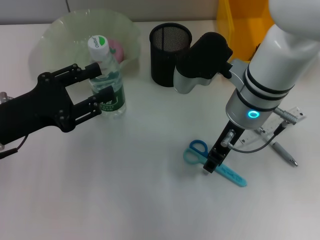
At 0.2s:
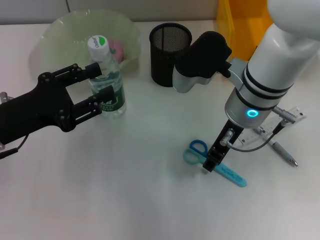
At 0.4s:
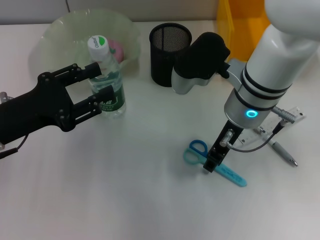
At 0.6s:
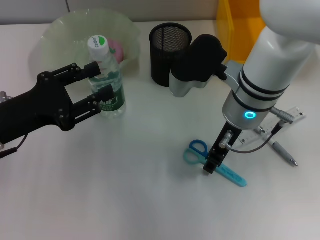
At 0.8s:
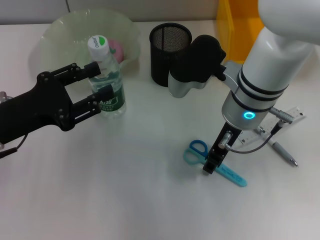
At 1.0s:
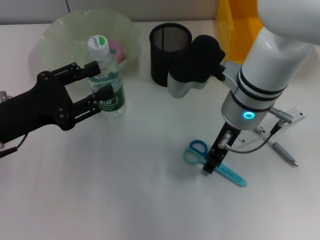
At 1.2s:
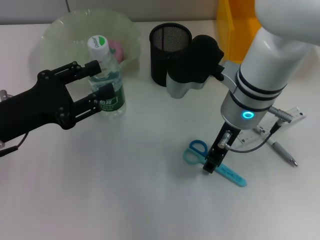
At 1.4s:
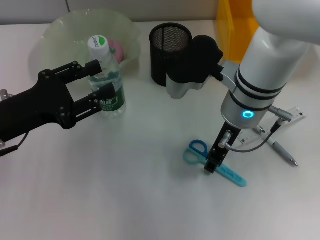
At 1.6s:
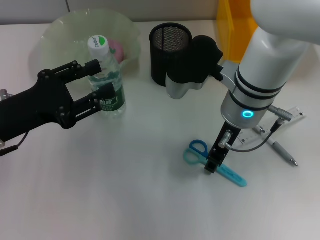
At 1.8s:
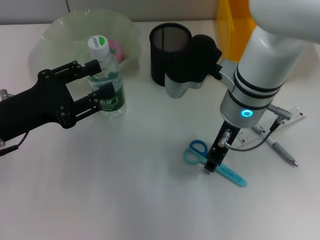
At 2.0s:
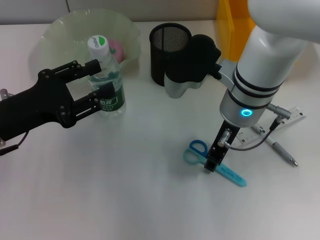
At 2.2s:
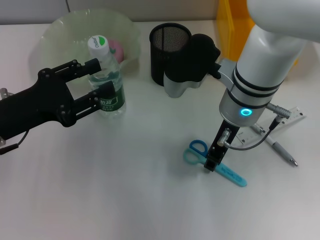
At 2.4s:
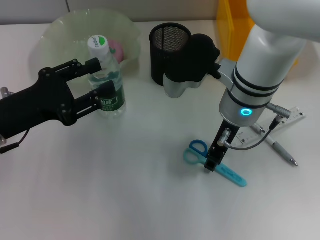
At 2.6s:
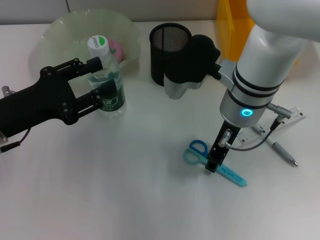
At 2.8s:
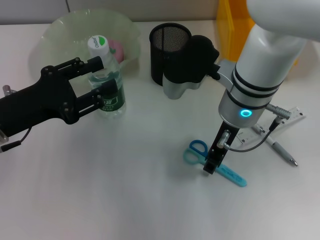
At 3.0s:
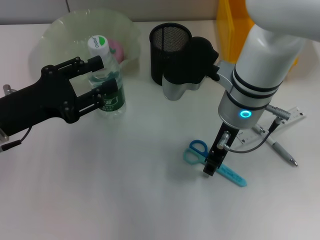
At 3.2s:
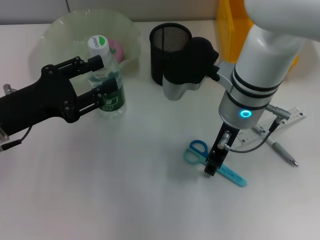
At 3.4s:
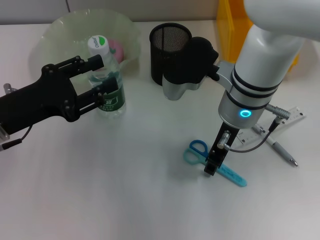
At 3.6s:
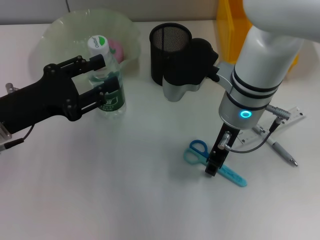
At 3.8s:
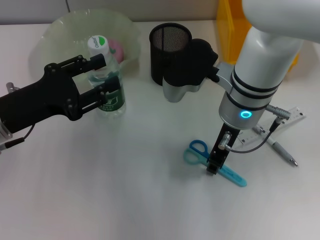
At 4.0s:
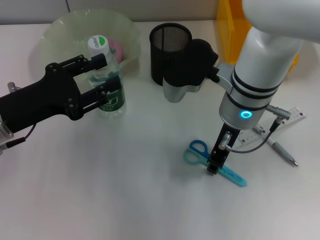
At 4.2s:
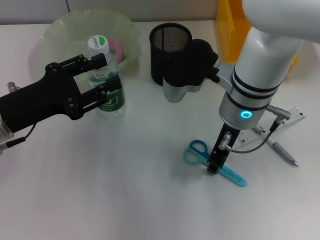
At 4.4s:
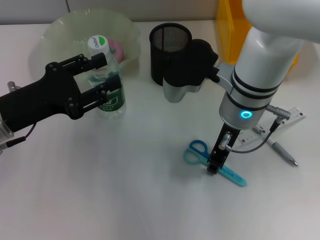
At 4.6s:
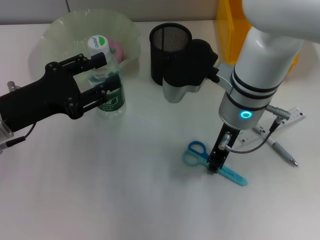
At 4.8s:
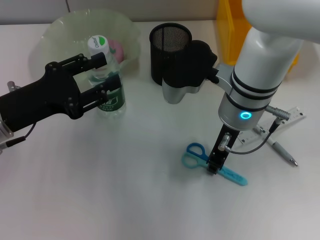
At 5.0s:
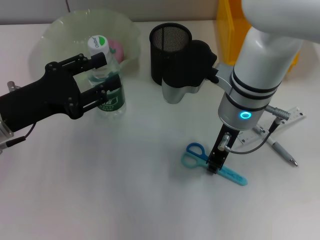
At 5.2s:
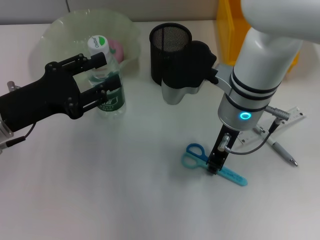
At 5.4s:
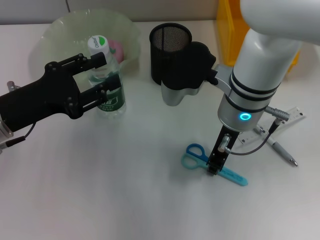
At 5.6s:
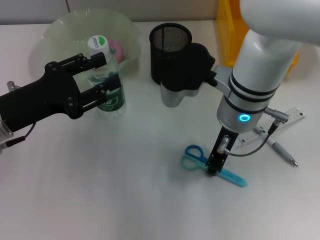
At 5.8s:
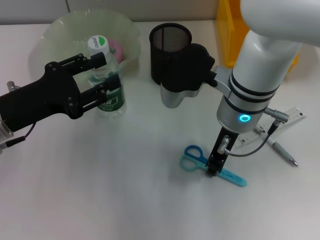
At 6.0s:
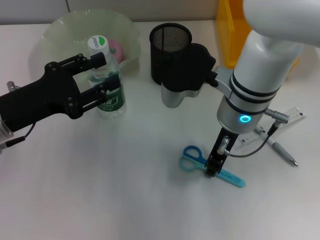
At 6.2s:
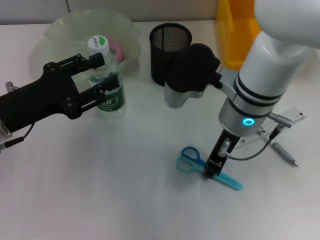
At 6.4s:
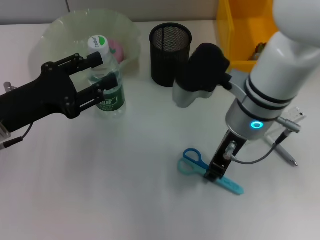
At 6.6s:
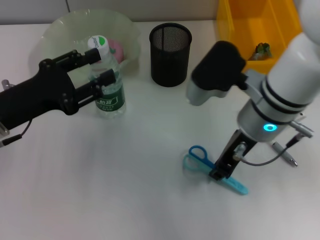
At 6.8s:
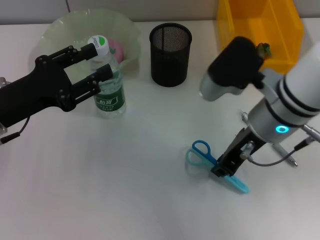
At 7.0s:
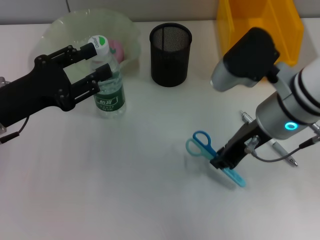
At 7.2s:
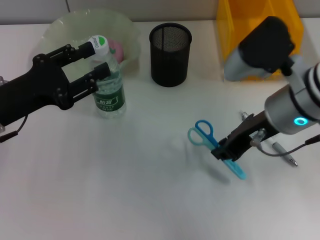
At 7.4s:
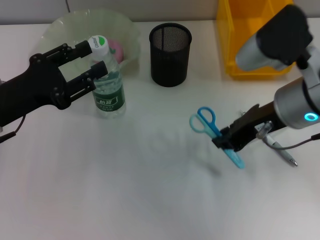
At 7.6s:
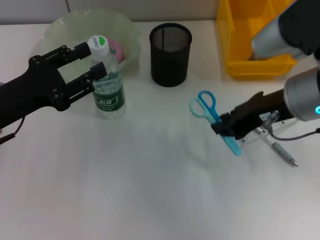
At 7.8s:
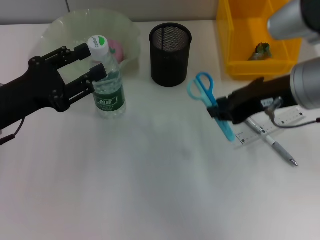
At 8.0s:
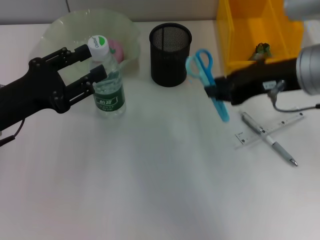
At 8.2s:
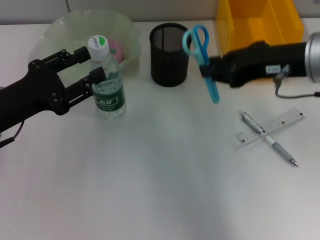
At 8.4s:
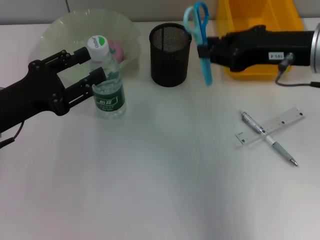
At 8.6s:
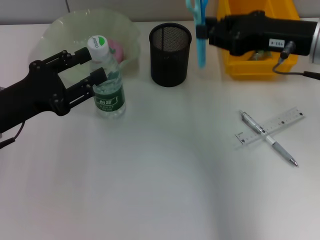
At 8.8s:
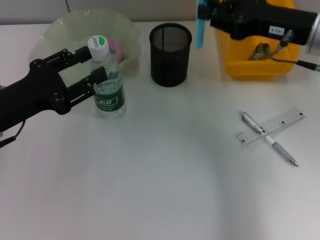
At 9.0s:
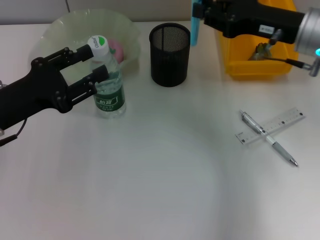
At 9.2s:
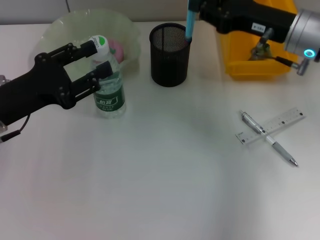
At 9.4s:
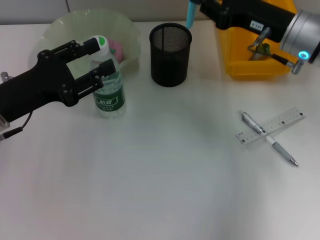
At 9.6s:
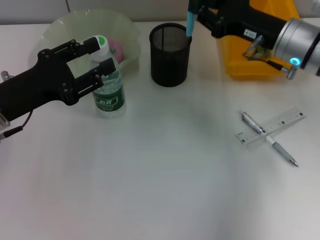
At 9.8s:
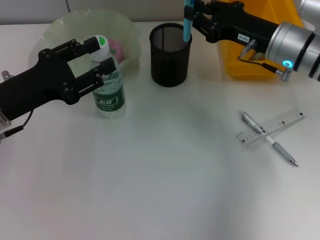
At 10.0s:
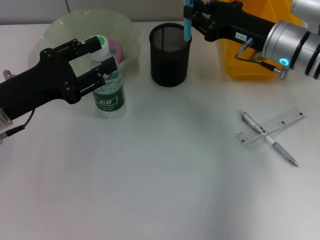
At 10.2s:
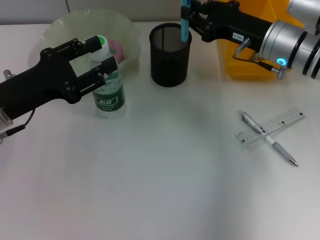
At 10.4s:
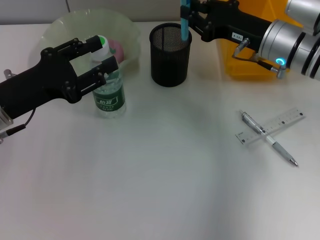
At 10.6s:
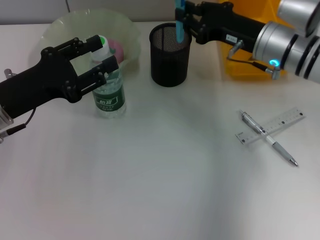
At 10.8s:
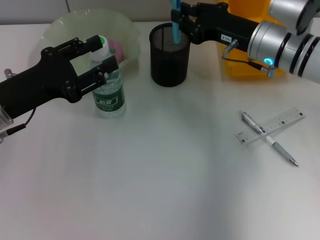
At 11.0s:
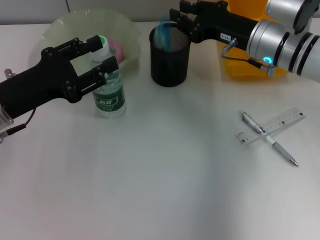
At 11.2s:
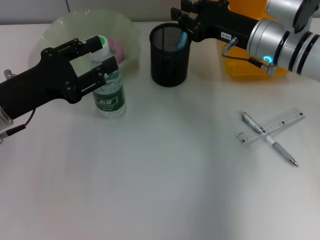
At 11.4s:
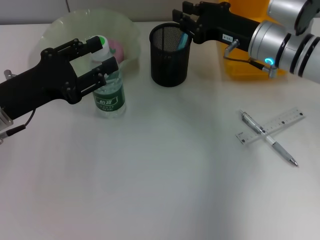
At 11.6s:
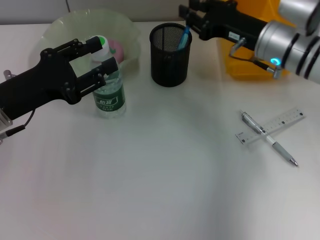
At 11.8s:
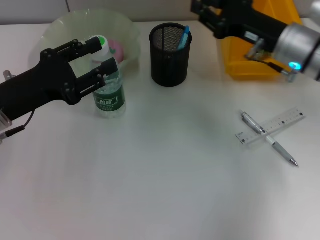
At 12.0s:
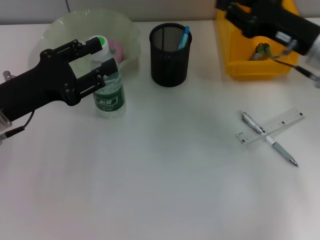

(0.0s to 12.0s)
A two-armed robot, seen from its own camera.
Step, 0.0s - 11.4s: Place the blue scissors into the pen holder with the right hand.
0.0s - 1.6s: Both grippers stay about where they are.
1.6s - 3.0s: Both grippers stay put.
3.0s - 6.0s: Both grippers stay put.
6.0s - 7.6s: The right gripper shifts some 10 cm to the right and upward.
7.6s - 9.0s: The right gripper is displaced forward by some 10 cm.
9.0s - 10.4s: The right gripper shifts by approximately 5 cm.
10.4s - 12.0s: The right gripper goes some 5 cm to the right.

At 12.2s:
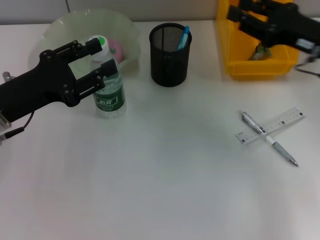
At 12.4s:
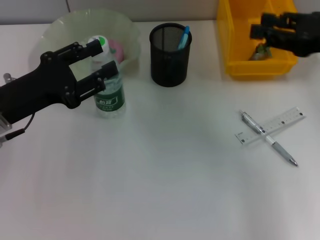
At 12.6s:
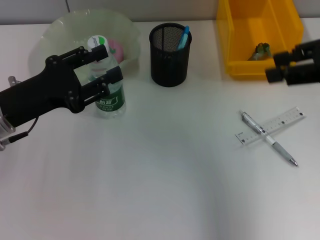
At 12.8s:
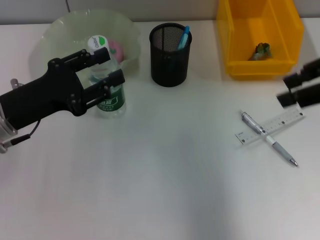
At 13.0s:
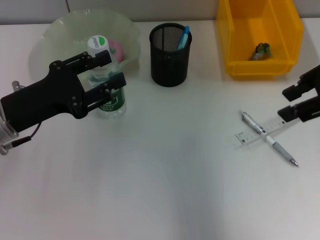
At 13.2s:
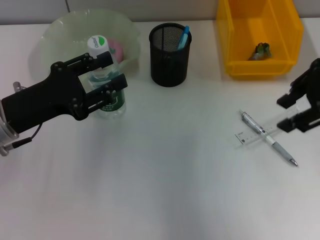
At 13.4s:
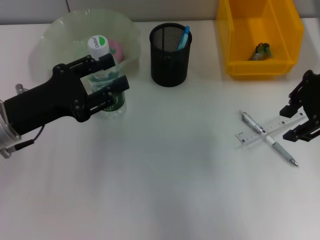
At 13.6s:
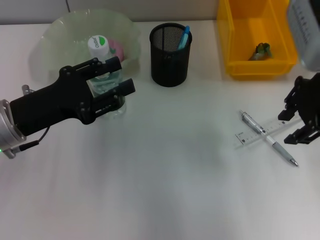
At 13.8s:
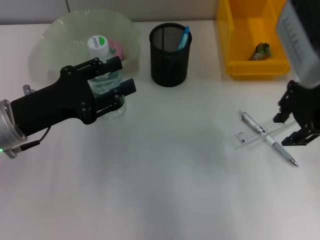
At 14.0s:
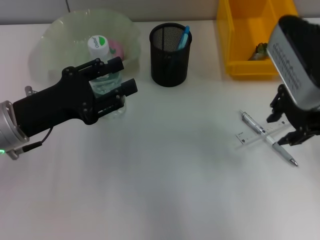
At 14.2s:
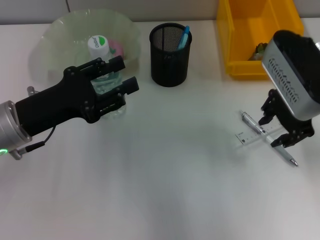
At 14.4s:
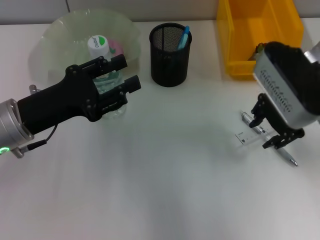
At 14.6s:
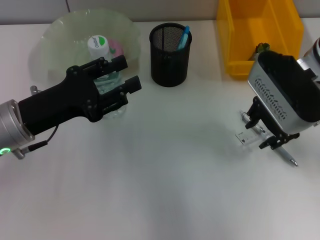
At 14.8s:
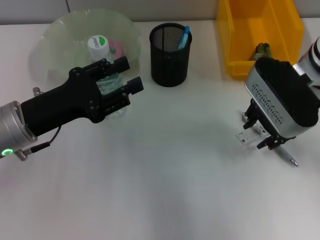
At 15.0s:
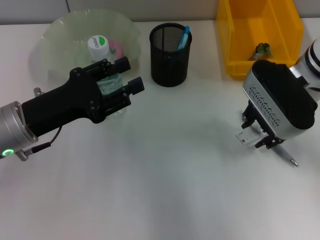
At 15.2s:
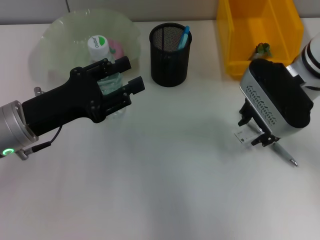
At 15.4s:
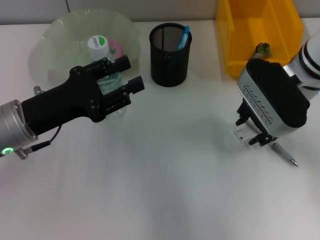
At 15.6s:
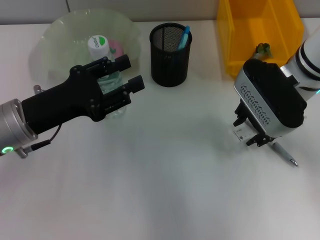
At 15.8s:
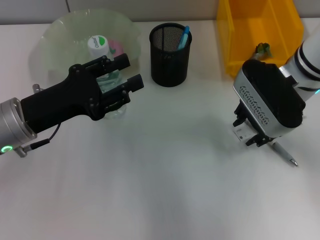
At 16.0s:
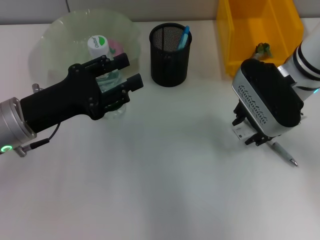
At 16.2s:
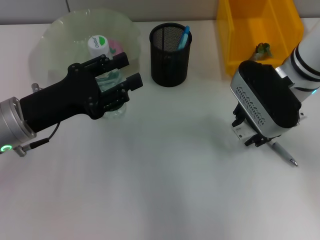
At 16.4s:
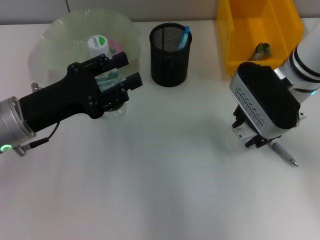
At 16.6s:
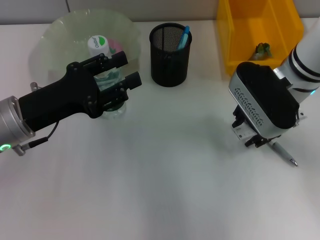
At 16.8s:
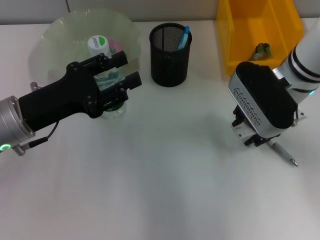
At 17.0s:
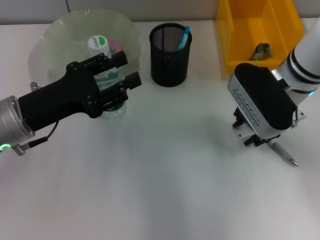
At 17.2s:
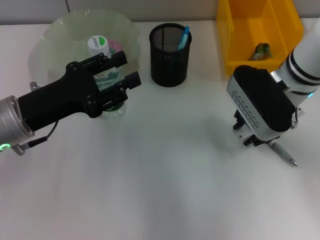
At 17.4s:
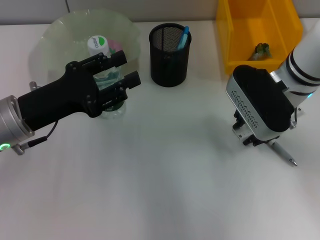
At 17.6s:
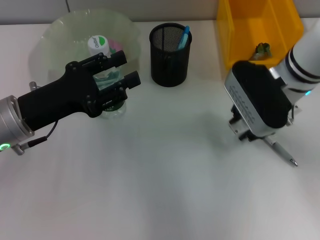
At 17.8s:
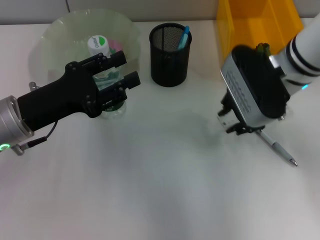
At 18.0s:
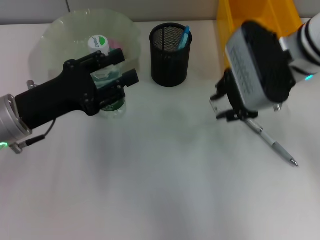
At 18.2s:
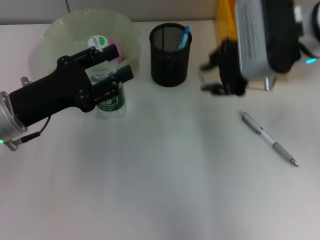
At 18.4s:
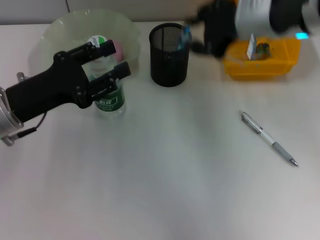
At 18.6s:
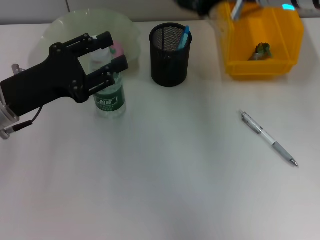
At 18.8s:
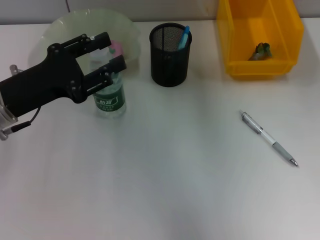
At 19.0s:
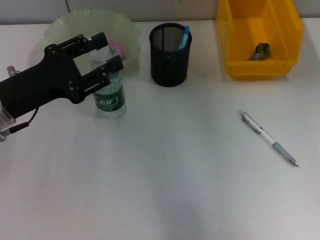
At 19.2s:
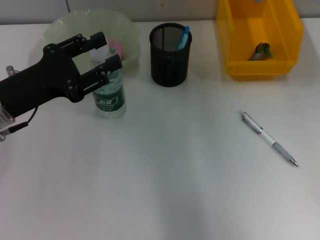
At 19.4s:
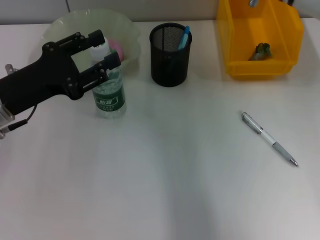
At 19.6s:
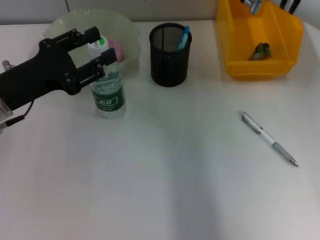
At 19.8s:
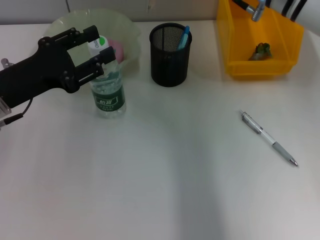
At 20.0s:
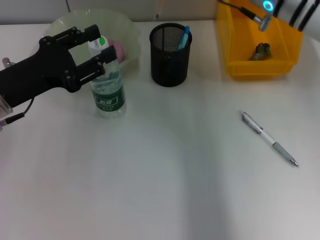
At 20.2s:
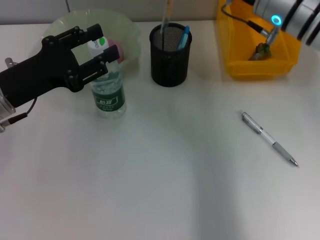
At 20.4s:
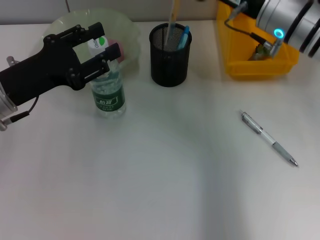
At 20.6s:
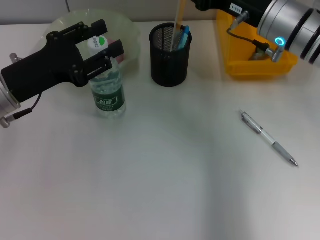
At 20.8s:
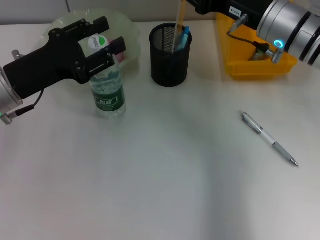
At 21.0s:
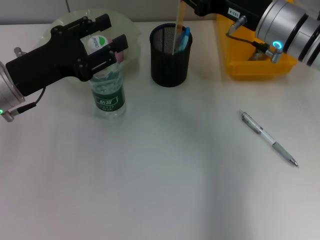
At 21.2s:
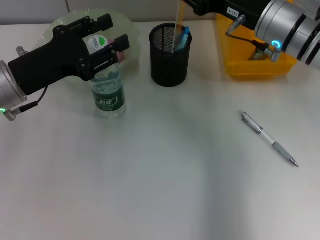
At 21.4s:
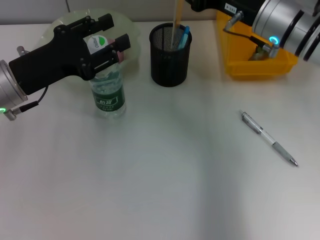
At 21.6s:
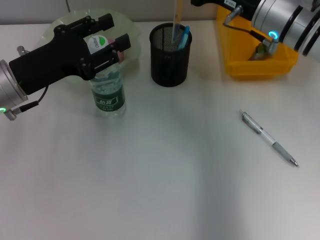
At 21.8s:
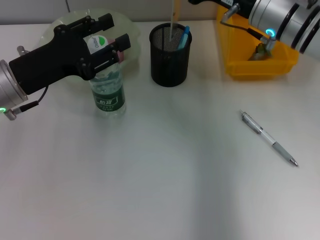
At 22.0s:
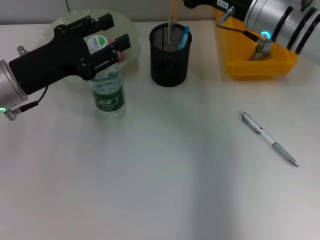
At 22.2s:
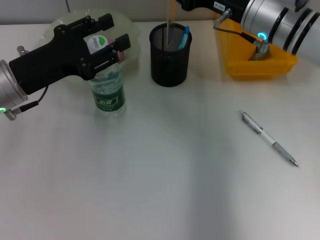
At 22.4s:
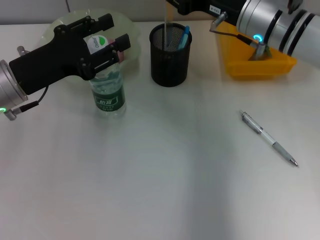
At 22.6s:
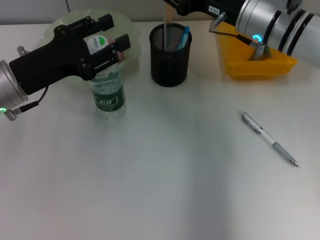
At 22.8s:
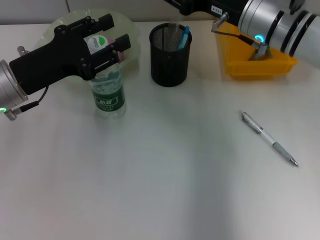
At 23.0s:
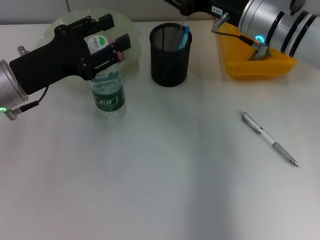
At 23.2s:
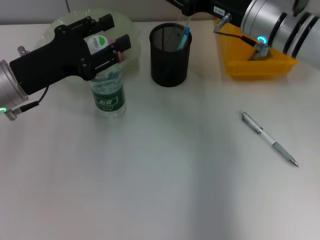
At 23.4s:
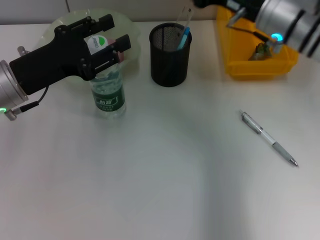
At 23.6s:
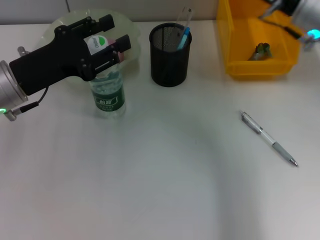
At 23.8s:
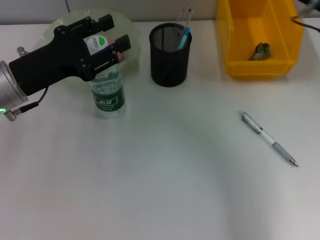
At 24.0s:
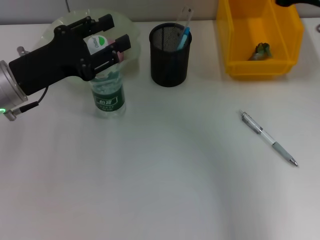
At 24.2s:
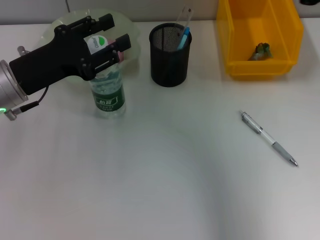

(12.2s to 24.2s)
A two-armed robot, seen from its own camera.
Step, 12.2s - 17.4s: Grab the ruler with the right hand.
Step, 17.8s - 23.0s: Place the ruler into the pen holder with the right hand.
12.2s - 13.8s: The right gripper heads to the left and upward, covering roughly 10 cm.
13.8s - 15.2s: The right gripper shifts some 5 cm downward.
15.2s - 16.6s: The grippers stay close to where they were, moving slightly.
16.6s - 18.2s: The right gripper travels upward by roughly 10 cm.
18.2s - 19.8s: The right gripper moves forward, approximately 5 cm.
19.8s - 21.2s: The right gripper shifts roughly 5 cm downward.
21.2s - 22.6s: The grippers move only a little.
22.6s - 24.2s: The right gripper travels to the right, upward and backward by approximately 20 cm.
